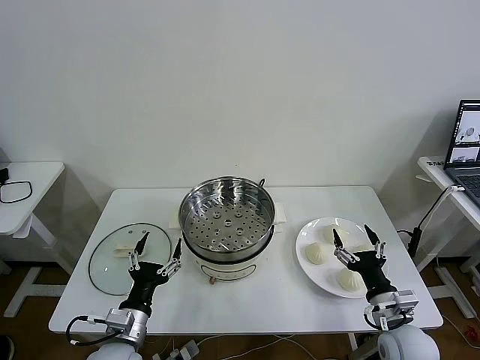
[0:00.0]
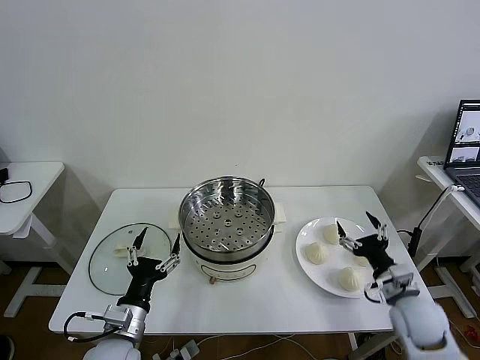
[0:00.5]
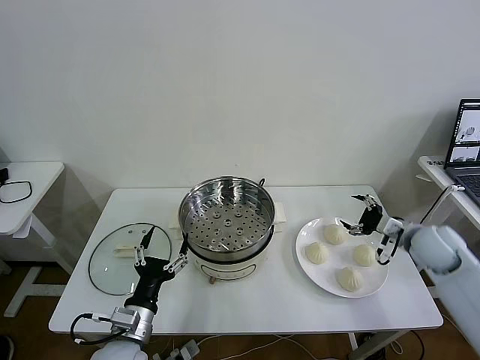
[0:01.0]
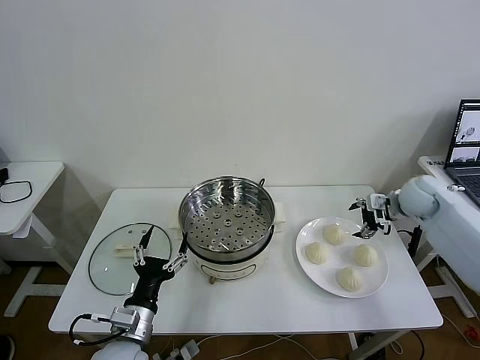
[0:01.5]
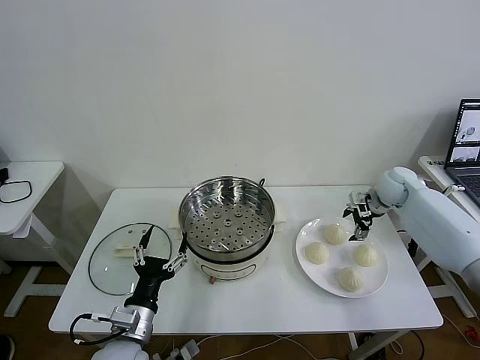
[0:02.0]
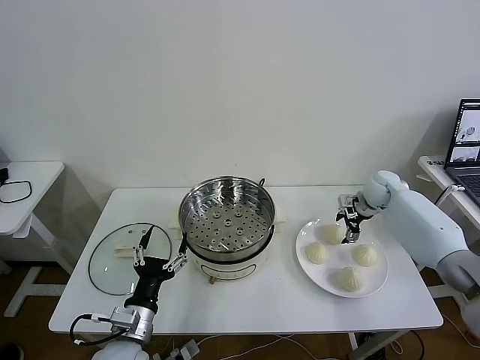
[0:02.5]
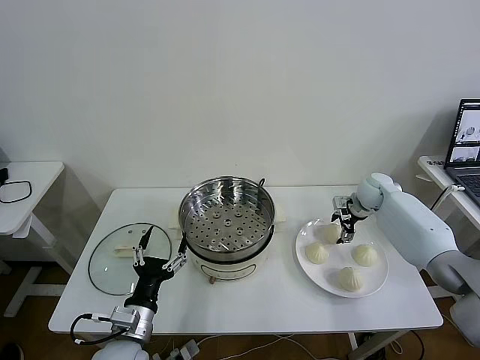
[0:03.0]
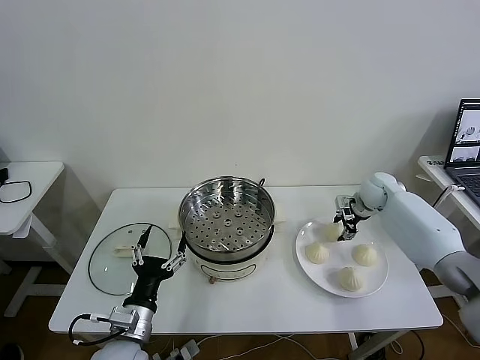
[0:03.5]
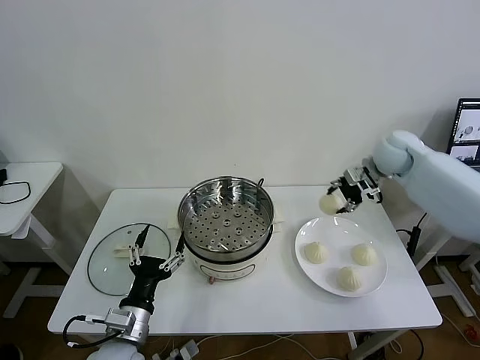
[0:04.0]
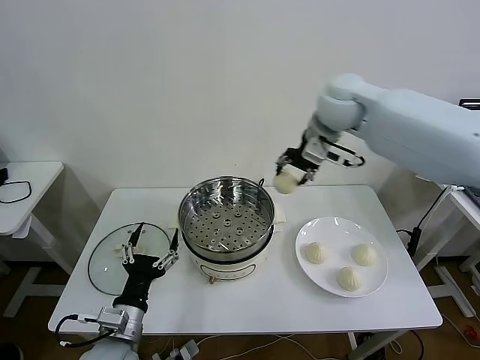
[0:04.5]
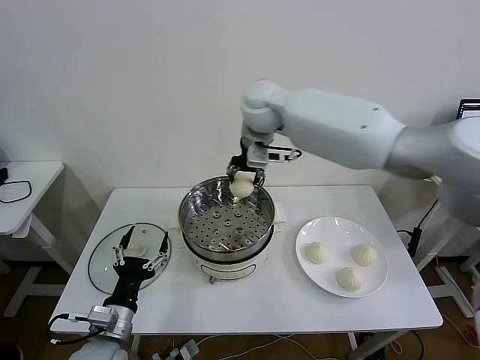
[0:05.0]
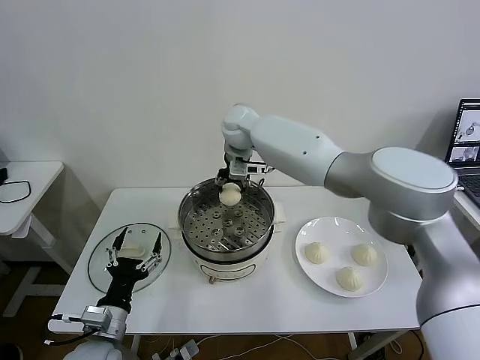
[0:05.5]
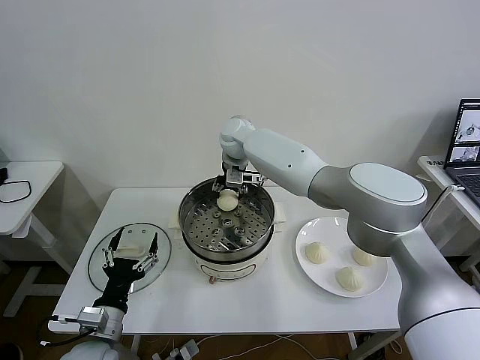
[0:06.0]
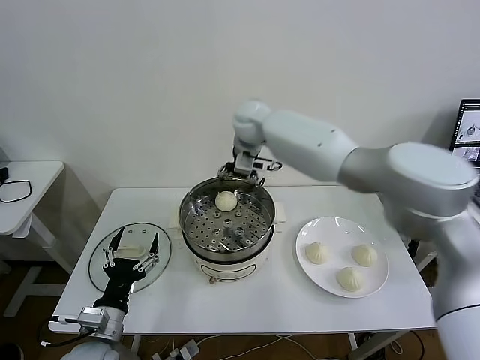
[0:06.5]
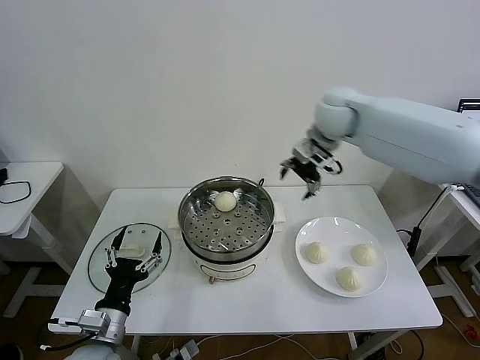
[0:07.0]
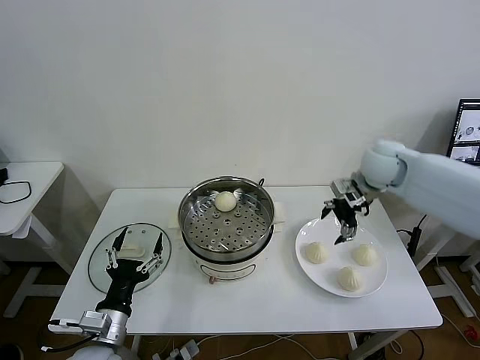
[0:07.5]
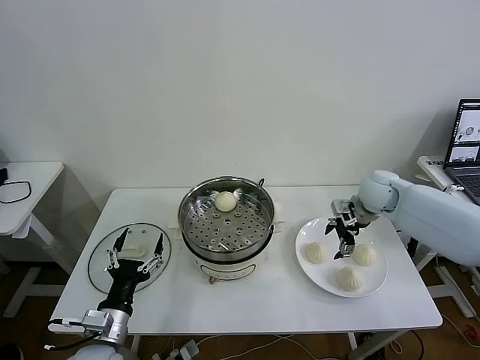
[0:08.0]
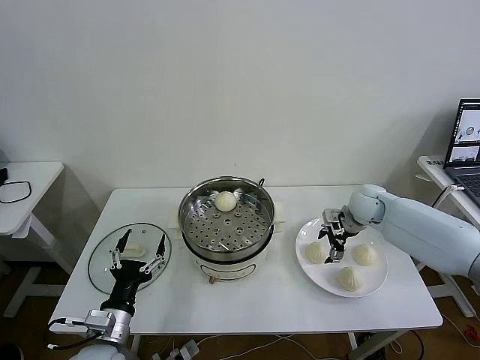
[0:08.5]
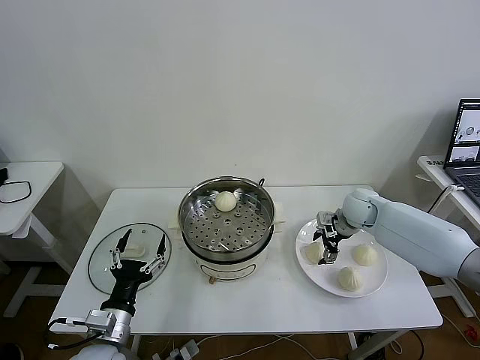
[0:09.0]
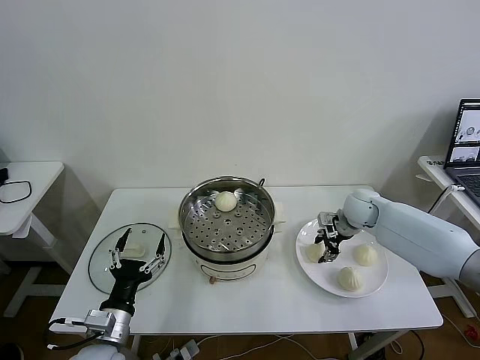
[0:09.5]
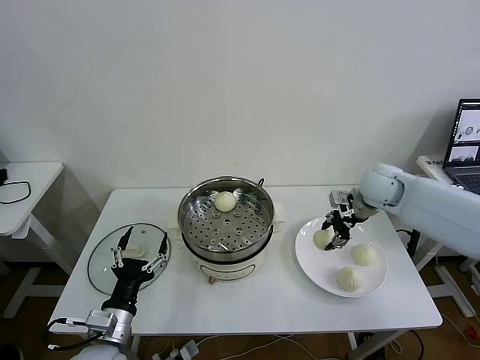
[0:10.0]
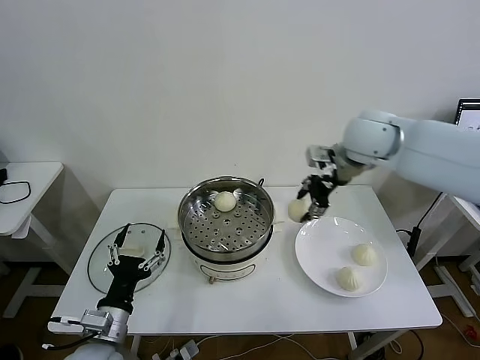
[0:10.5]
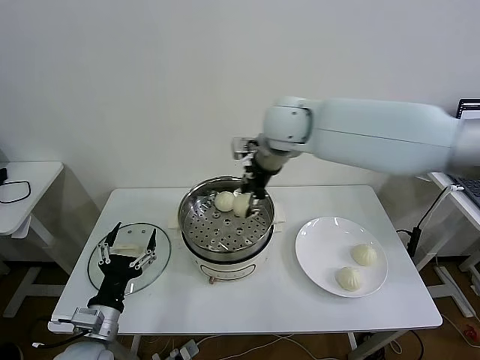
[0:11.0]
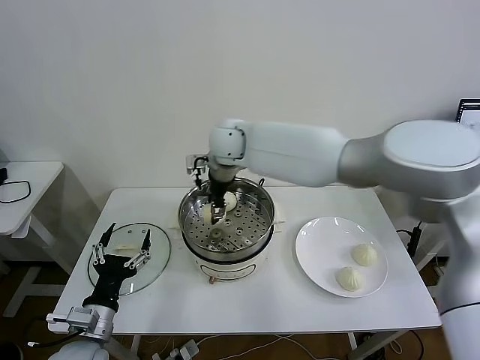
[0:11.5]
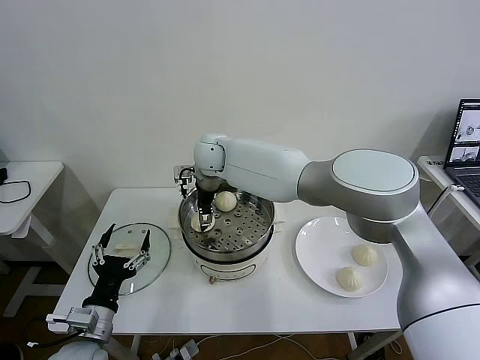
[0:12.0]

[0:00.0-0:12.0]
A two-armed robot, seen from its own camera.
Task of the whole recording: take steamed baozi put them in steamer then cover it.
Step, 0:00.0 to 0:03.0: Grasp the baozi in the plate with right gripper.
Step, 0:03.5 to 0:06.0: Place the baozi on the steamer with right gripper.
Step, 0:06.5 to 0:09.0: Grasp the baozi in the plate with right gripper.
0:02.0 to 0:04.0: The right gripper goes about 20 cm upward and to the left, and closes its fingers.
0:04.0 to 0:06.0: The right gripper shifts about 30 cm to the left, and opens, while the left gripper heads to the left, covering roughly 5 cm.
0:06.0 to 0:08.0: The right gripper heads to the right, covering roughly 35 cm, and opens.
0:08.0 to 0:10.0: The right gripper moves upward, some 5 cm, and closes.
0:10.0 to 0:12.0: The right gripper heads to the left, covering some 40 cm, and opens.

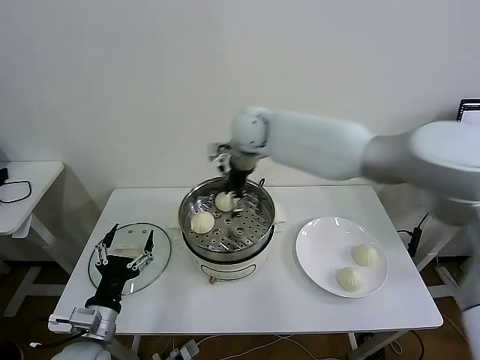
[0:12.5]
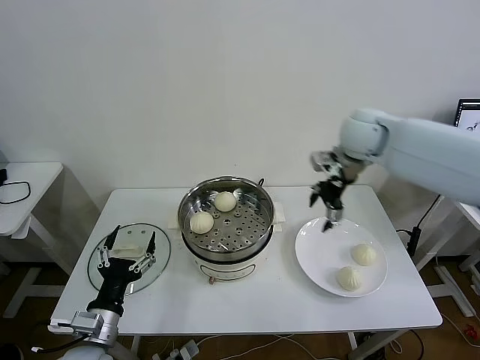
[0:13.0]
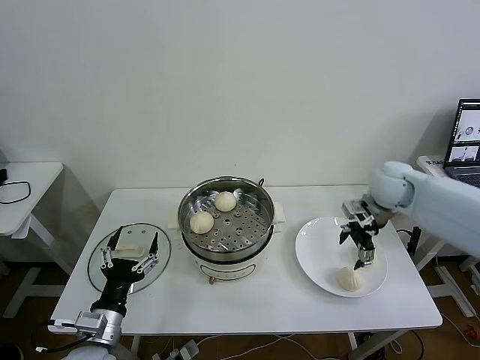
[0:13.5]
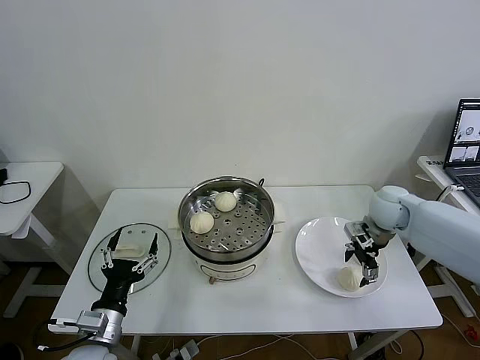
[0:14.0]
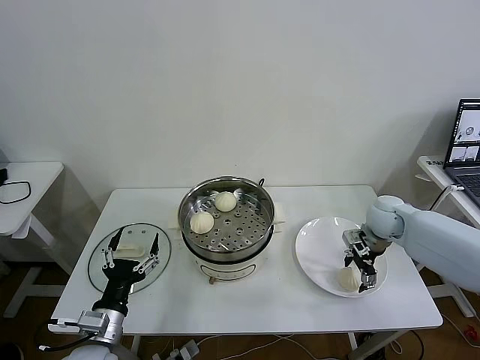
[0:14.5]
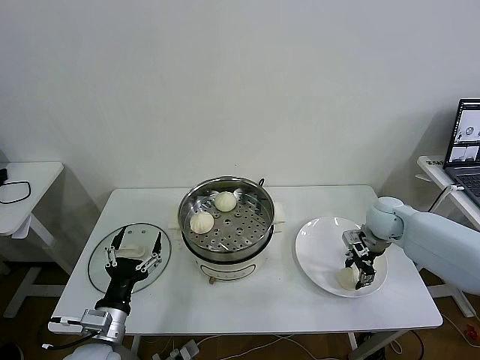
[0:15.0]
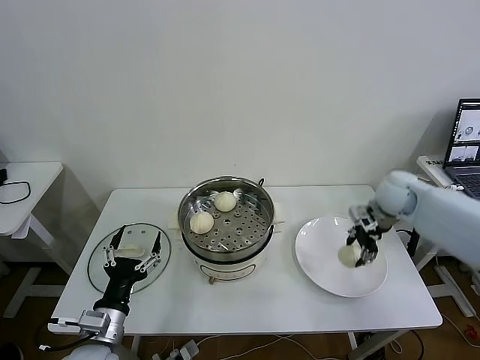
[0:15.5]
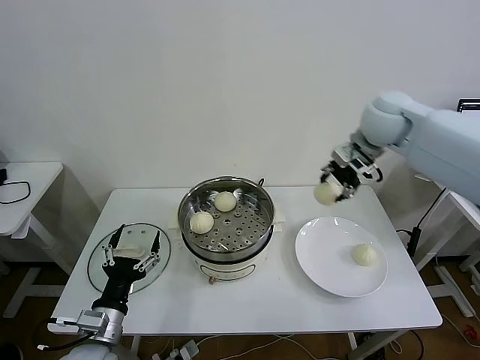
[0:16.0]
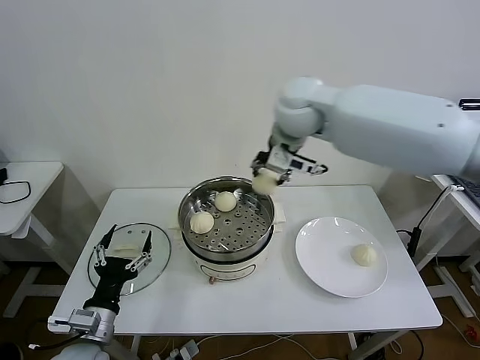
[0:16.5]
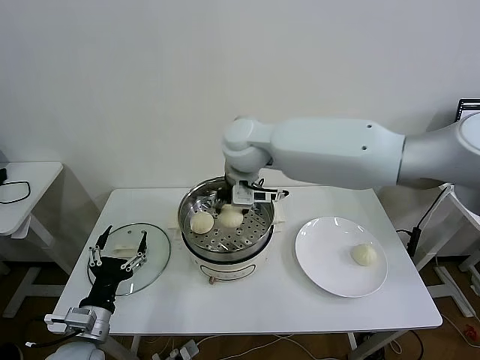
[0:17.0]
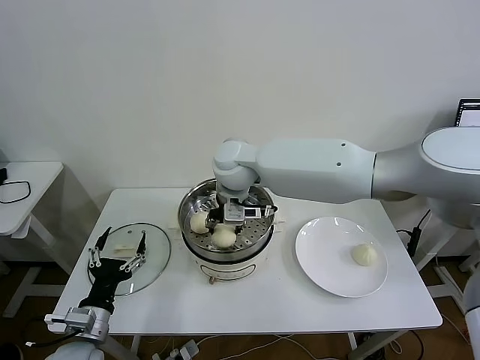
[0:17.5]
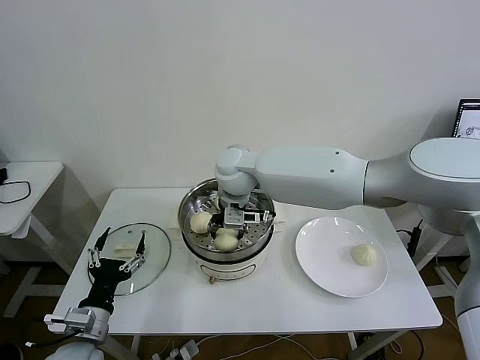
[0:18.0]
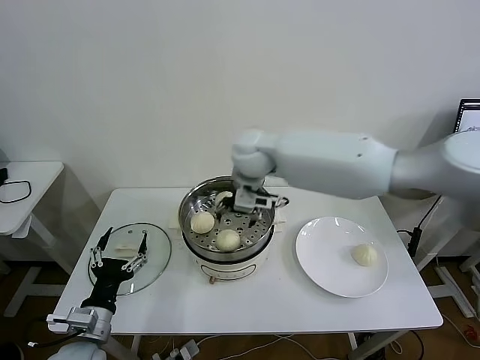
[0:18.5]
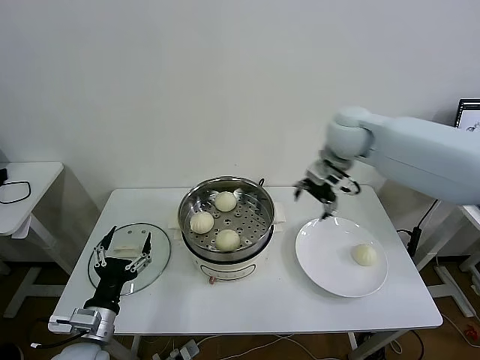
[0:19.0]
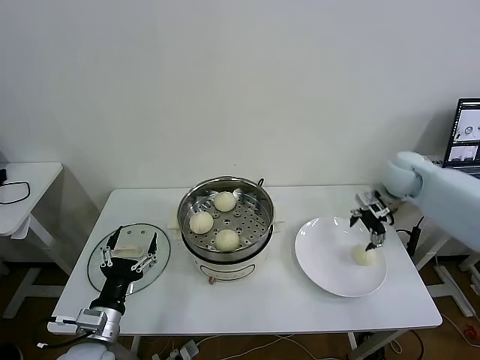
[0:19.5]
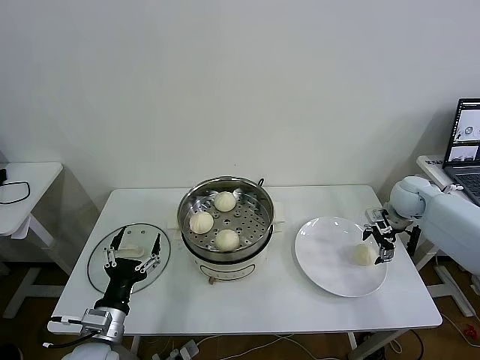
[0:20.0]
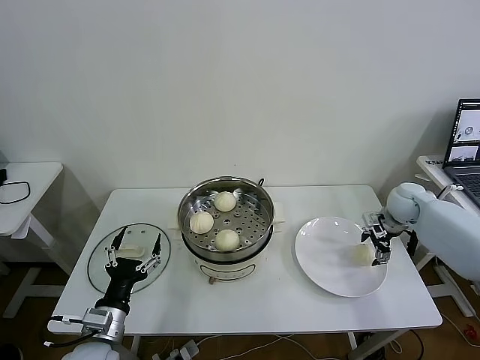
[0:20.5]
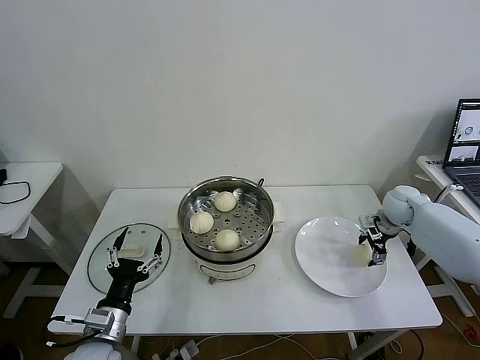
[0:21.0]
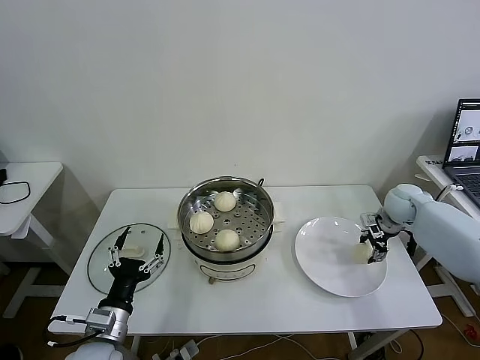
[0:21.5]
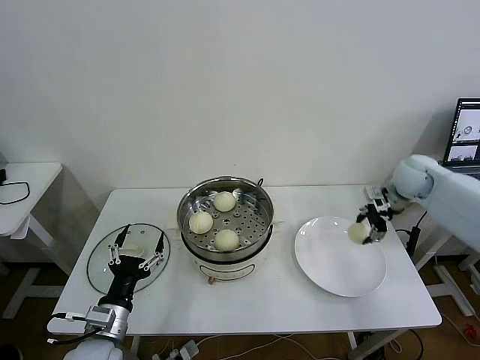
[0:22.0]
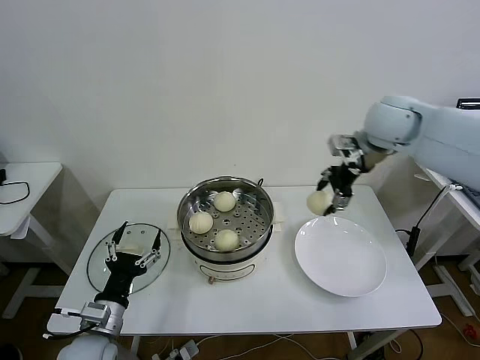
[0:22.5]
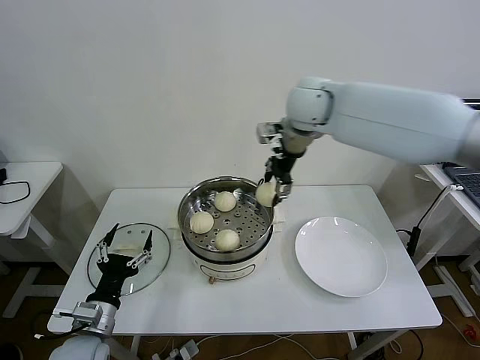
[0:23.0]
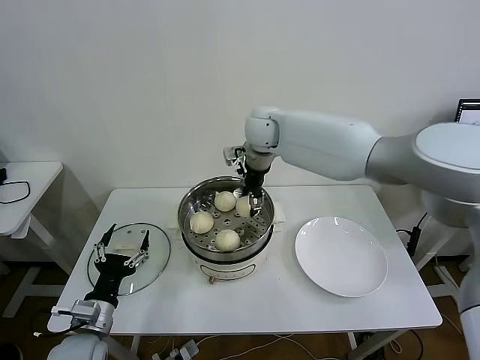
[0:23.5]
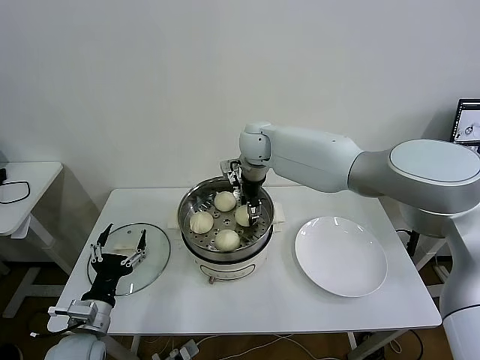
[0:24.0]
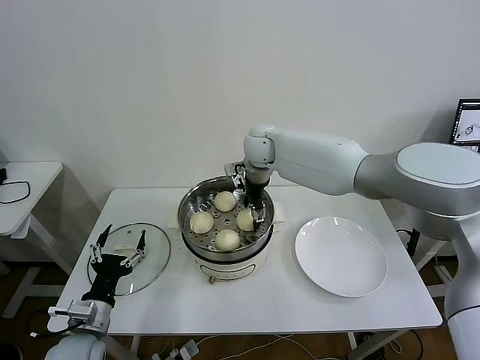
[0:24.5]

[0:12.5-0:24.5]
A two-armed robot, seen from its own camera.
Task of the whole recording: take steamed baozi put them in steamer then cover it.
Step, 0:12.5 to 0:15.0: Grasp the baozi in the plate with right gripper.
Step, 0:15.5 to 0:18.0: Place the baozi on the steamer with right gripper.
Step, 0:18.5 to 0:21.5: Grasp the baozi in the plate with right gripper.
Step, 0:22.0 to 0:24.0: Place the baozi on the steamer with right gripper.
0:12.5 to 0:14.5: The right gripper moves to the right and downward, approximately 35 cm.
0:14.5 to 0:16.5: The right gripper heads to the left and upward, covering about 40 cm, and closes.
0:16.5 to 0:18.5: The right gripper travels downward by some 10 cm, and opens up.
0:18.5 to 0:20.5: The right gripper goes some 40 cm to the right and downward.
0:20.5 to 0:22.5: The right gripper is displaced upward and to the left by roughly 30 cm, and closes its fingers.
0:22.5 to 0:24.5: The right gripper shifts approximately 25 cm to the left and downward, and opens.

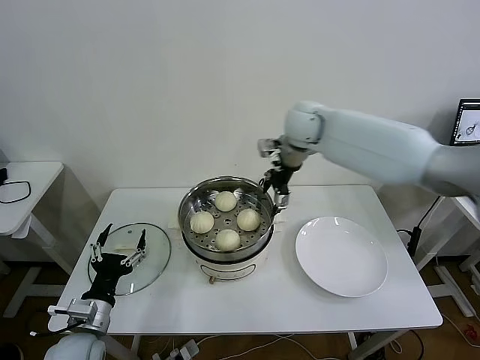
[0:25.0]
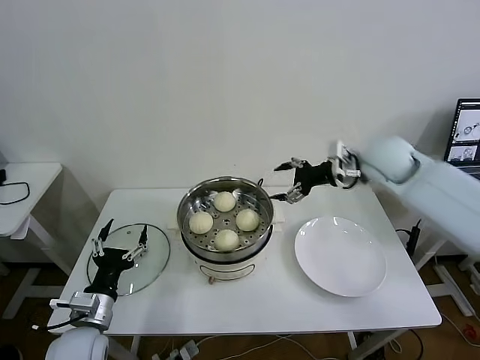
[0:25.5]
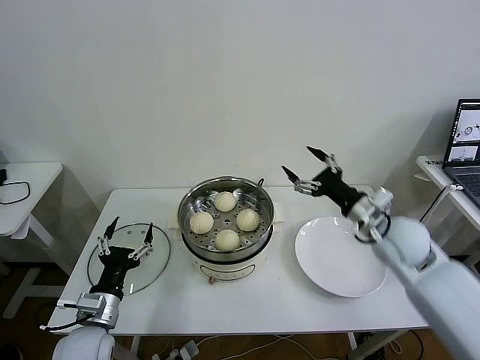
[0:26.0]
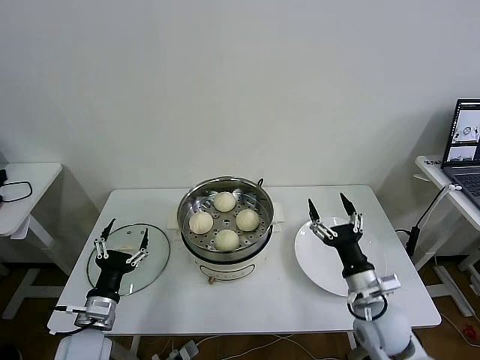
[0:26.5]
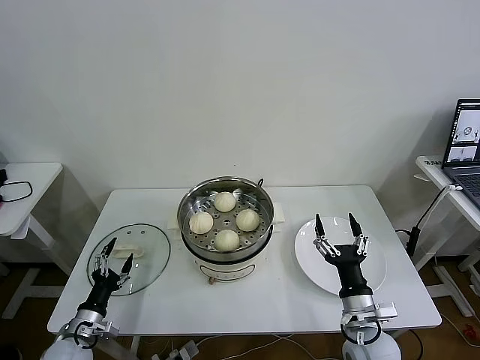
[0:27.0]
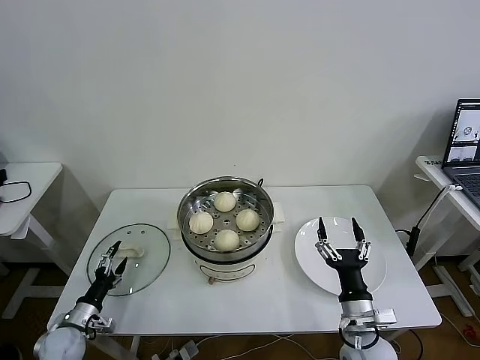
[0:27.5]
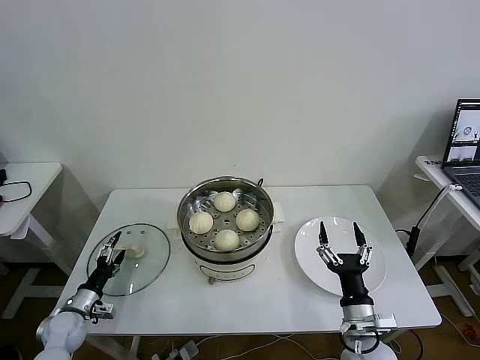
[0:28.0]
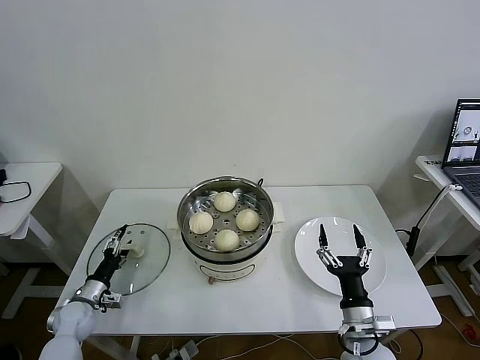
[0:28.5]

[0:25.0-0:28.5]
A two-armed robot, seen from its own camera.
Task of the whole recording: take steamed baozi put them in steamer then cover it.
0:25.0 to 0:27.0: The right gripper goes about 50 cm backward and downward; the left gripper goes approximately 10 cm downward and to the left.
0:27.0 to 0:28.5: The left gripper shifts approximately 10 cm forward.
